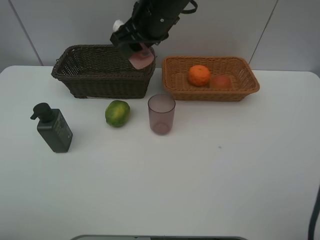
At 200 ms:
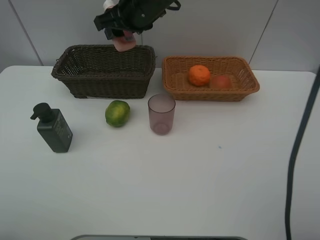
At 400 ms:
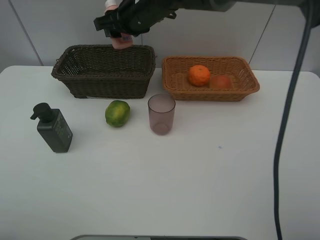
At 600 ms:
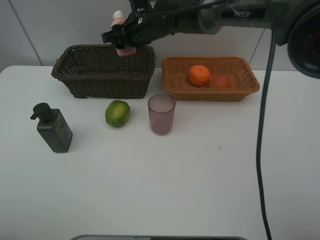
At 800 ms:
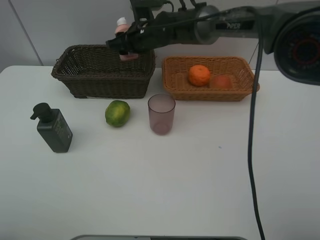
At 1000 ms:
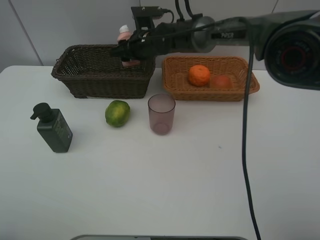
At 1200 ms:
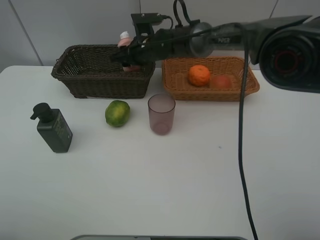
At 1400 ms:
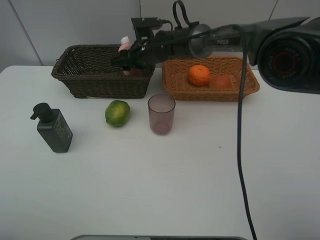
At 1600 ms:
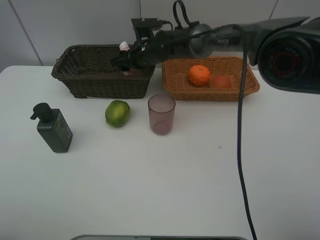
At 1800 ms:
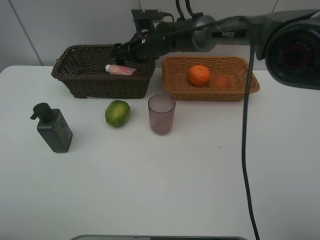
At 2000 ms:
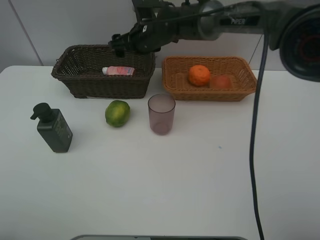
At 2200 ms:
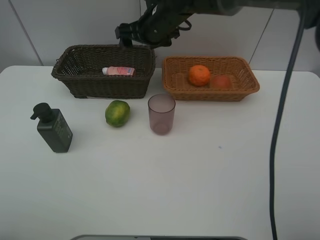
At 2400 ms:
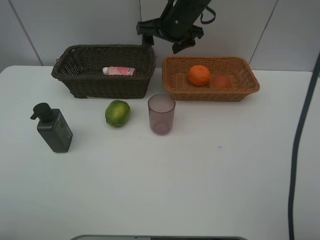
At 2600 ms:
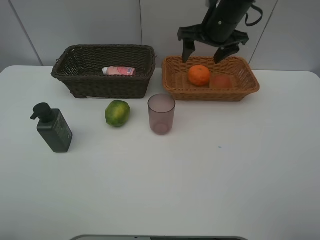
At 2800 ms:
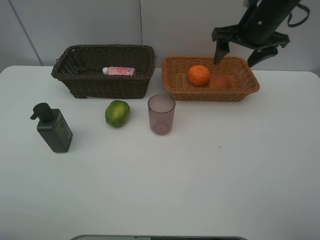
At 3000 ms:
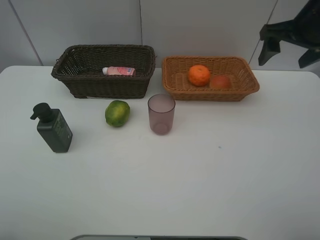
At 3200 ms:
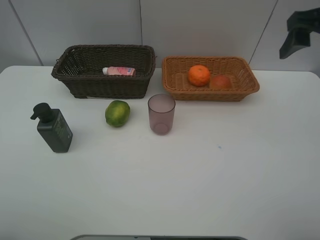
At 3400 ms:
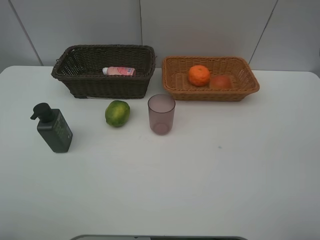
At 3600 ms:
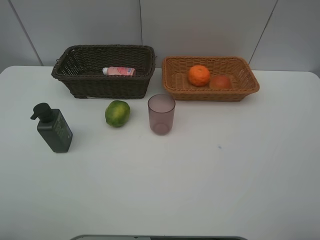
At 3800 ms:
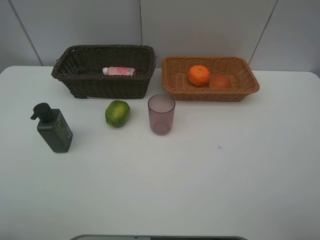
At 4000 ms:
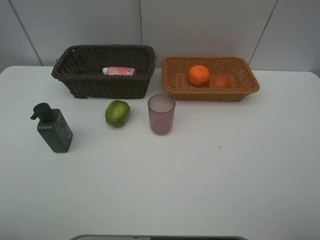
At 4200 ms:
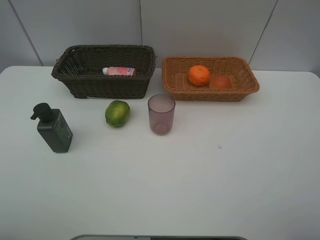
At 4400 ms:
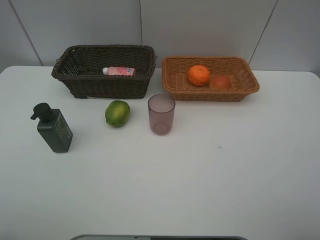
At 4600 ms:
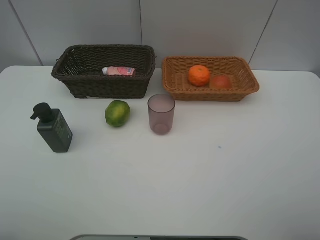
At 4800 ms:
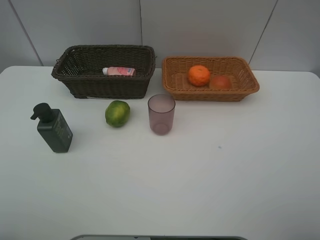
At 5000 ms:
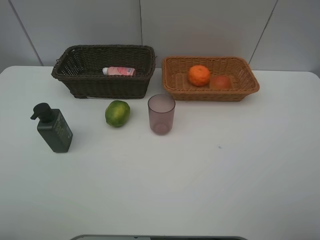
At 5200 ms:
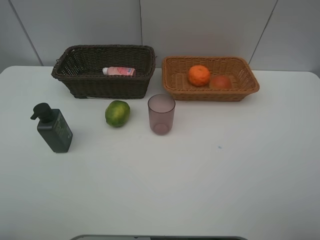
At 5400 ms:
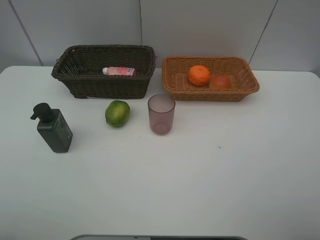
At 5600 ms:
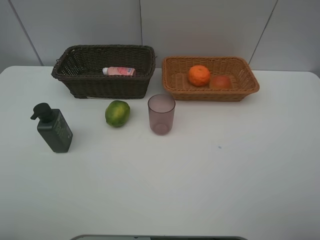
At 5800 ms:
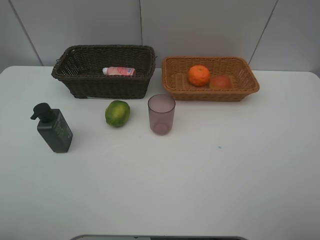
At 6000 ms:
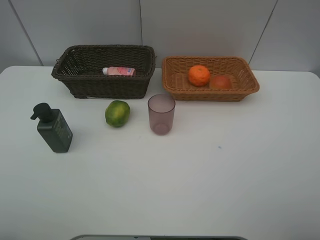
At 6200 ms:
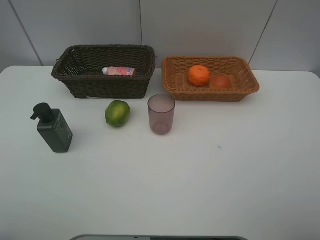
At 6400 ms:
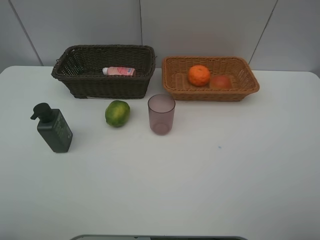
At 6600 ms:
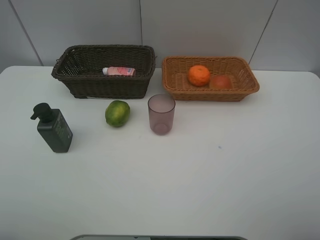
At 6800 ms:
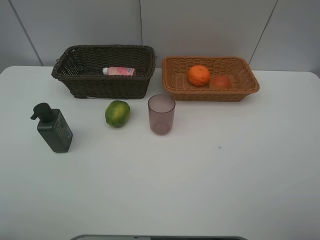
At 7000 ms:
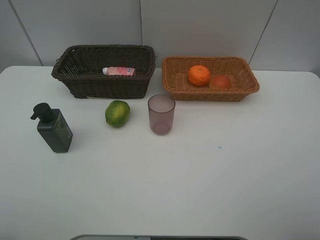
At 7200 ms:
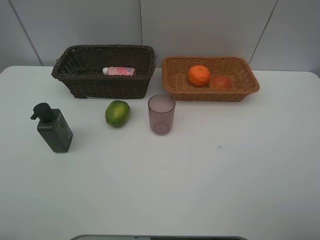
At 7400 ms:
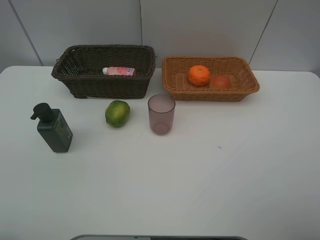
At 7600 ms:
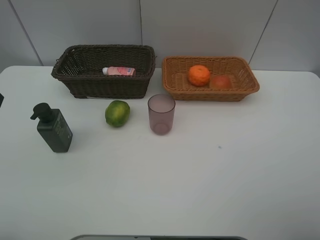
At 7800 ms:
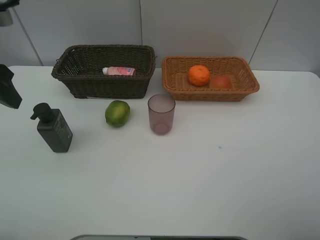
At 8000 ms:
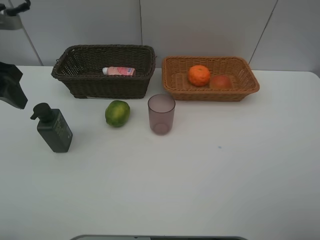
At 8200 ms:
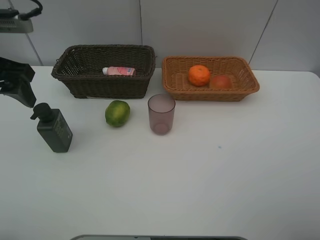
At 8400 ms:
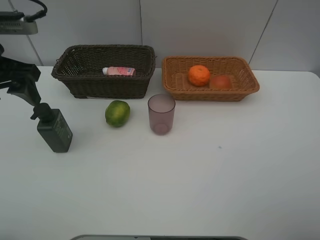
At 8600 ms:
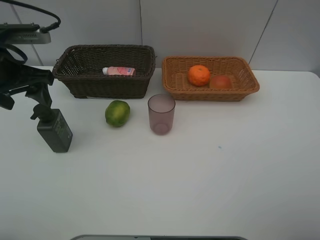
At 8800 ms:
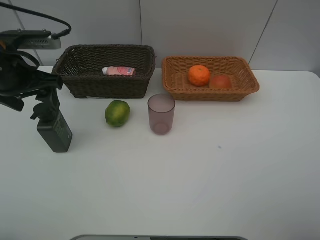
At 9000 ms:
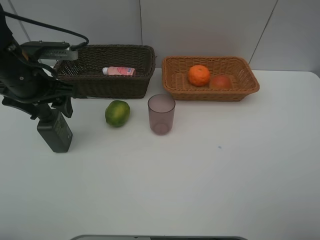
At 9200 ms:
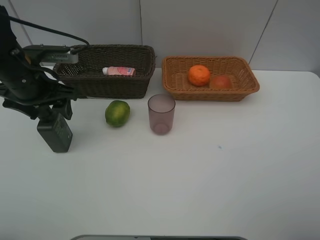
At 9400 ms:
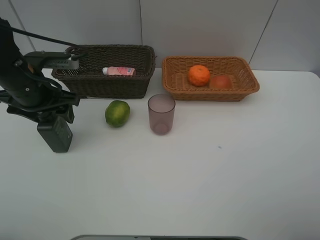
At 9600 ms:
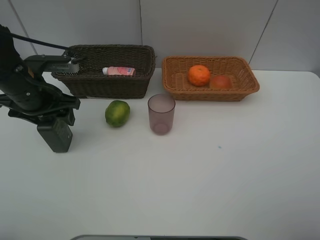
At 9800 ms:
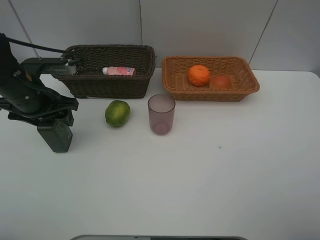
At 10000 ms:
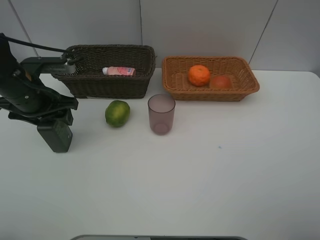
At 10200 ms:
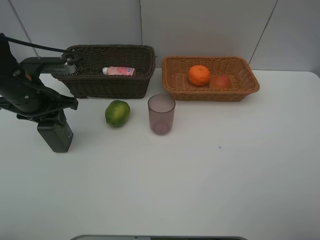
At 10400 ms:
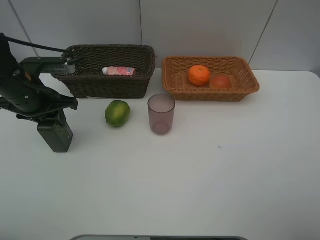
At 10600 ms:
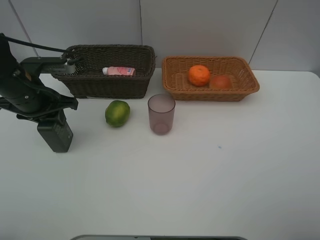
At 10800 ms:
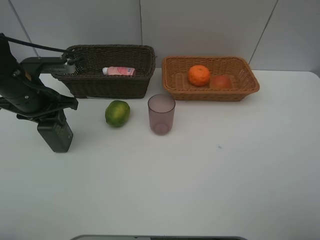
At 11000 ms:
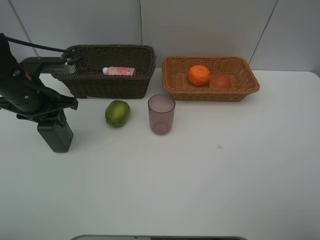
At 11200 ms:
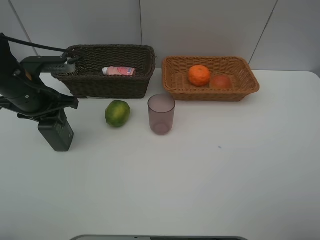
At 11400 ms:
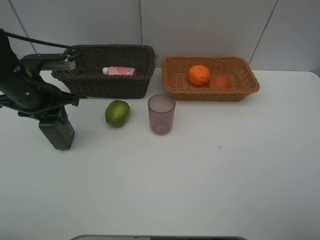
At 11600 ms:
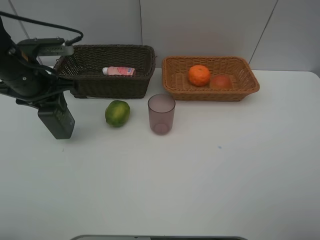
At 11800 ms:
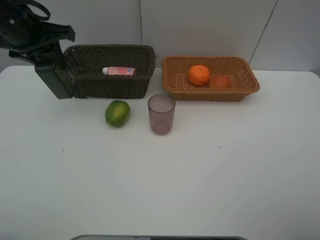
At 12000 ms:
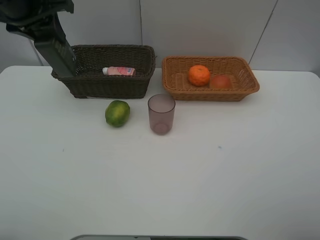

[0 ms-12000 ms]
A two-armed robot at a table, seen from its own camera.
Task of the whole recording: place multiple objects separately in different baskets.
0 ms to 1600 ms: The right gripper goes roughly 15 cm downward and forward.
1600 ms to 3000 ms: The right gripper moves to the right, upward and backward, roughly 35 cm, and opens up.
3000 ms to 4400 ms: The right gripper is displaced backward by approximately 30 cm.
7600 ms to 9000 ms: The left gripper shifts roughly 15 cm forward and downward.
9000 ms to 10400 ms: The left gripper closes.
10400 ms to 12000 ms: The left gripper is displaced upward and forward by approximately 15 cm.

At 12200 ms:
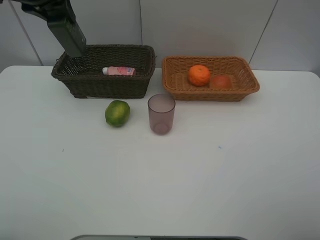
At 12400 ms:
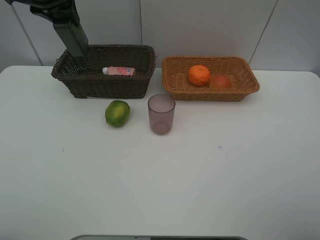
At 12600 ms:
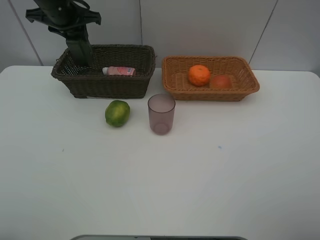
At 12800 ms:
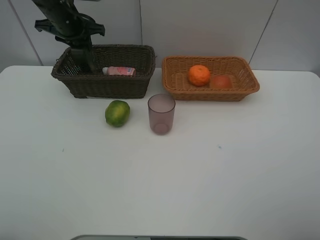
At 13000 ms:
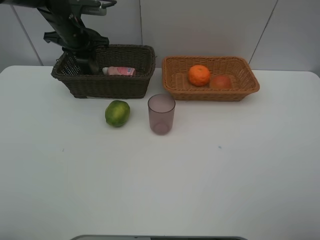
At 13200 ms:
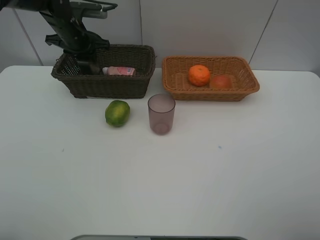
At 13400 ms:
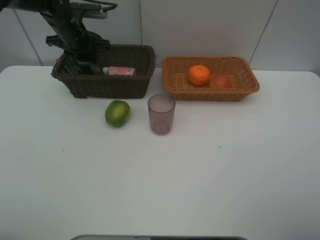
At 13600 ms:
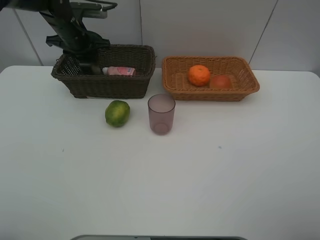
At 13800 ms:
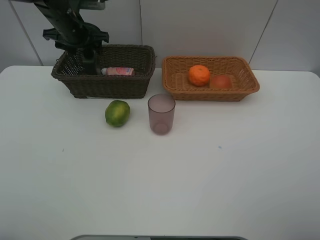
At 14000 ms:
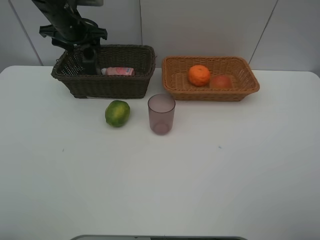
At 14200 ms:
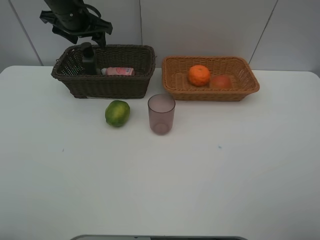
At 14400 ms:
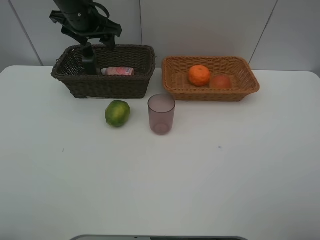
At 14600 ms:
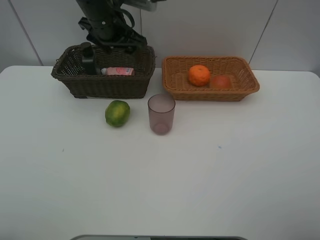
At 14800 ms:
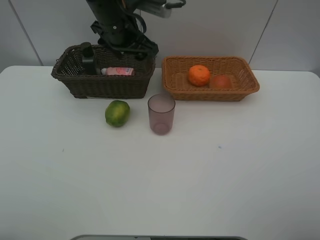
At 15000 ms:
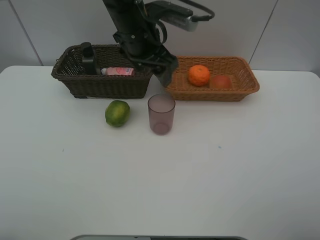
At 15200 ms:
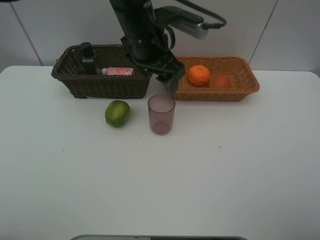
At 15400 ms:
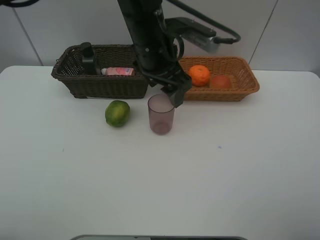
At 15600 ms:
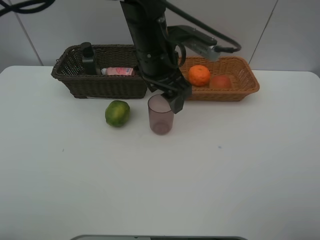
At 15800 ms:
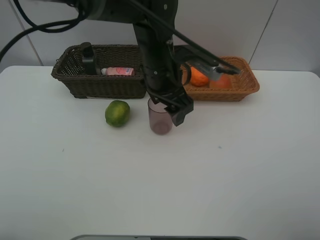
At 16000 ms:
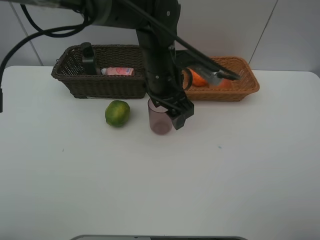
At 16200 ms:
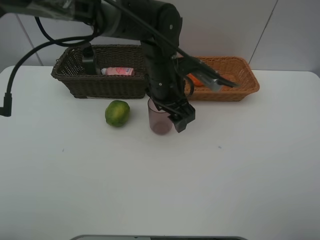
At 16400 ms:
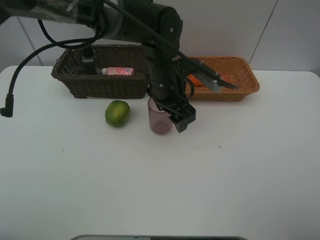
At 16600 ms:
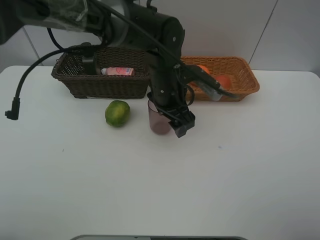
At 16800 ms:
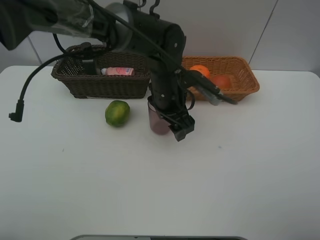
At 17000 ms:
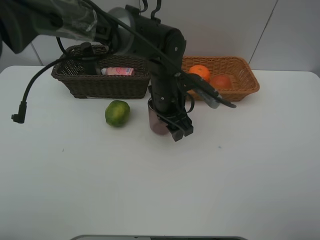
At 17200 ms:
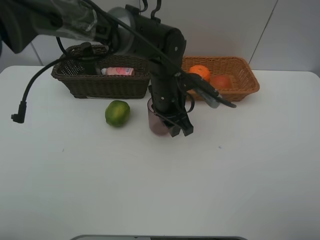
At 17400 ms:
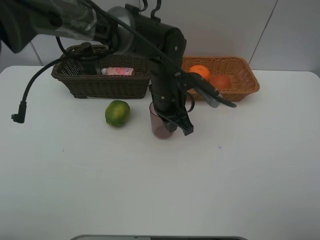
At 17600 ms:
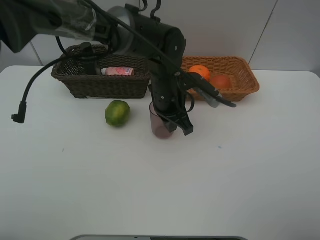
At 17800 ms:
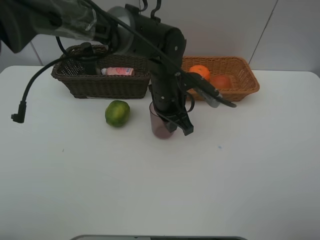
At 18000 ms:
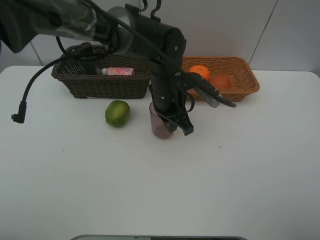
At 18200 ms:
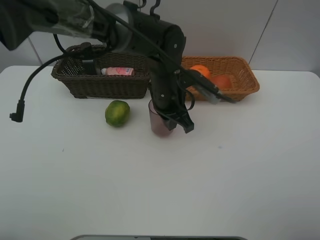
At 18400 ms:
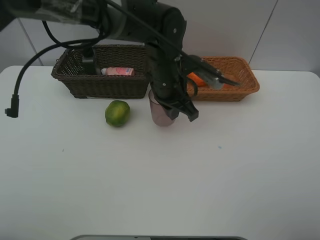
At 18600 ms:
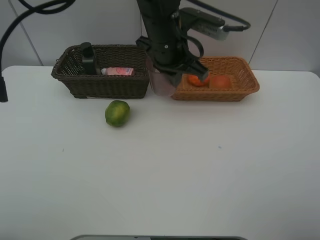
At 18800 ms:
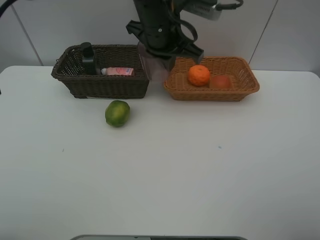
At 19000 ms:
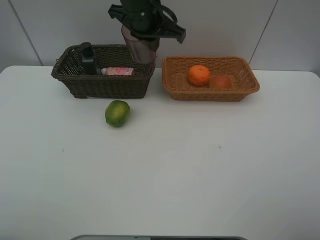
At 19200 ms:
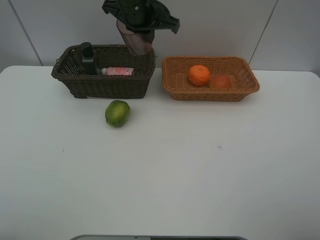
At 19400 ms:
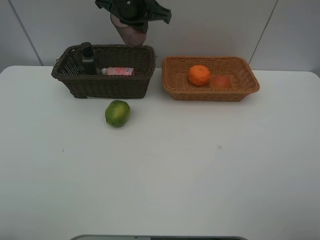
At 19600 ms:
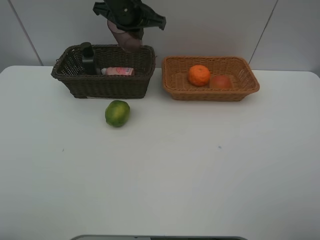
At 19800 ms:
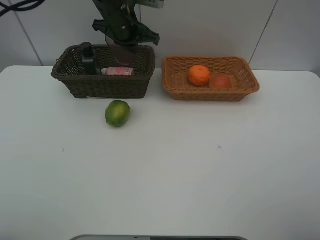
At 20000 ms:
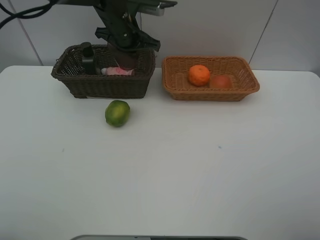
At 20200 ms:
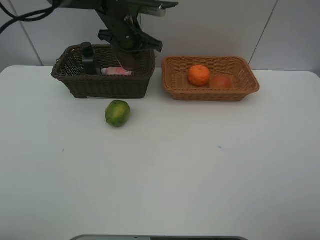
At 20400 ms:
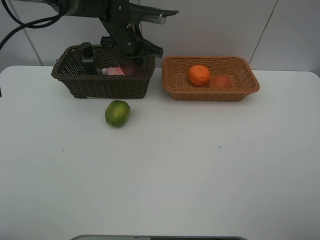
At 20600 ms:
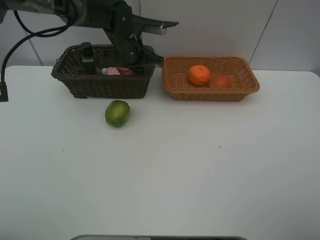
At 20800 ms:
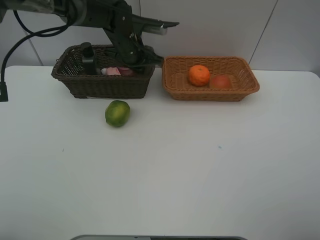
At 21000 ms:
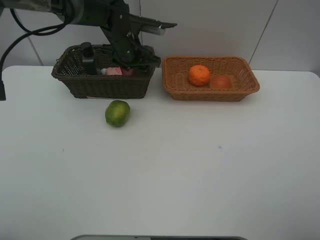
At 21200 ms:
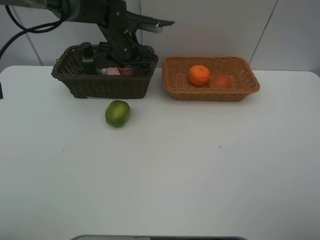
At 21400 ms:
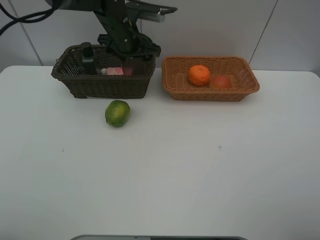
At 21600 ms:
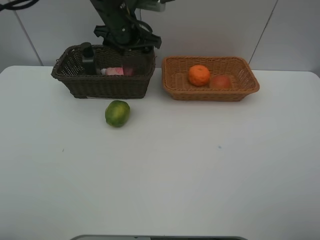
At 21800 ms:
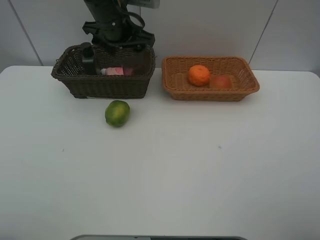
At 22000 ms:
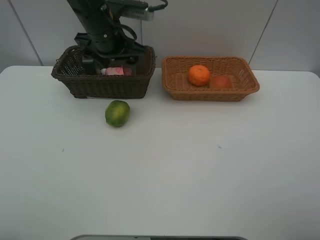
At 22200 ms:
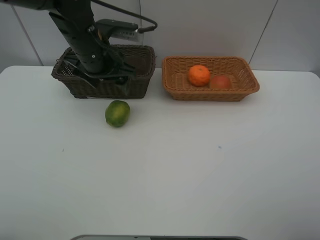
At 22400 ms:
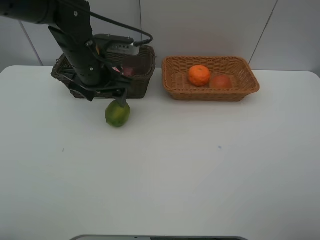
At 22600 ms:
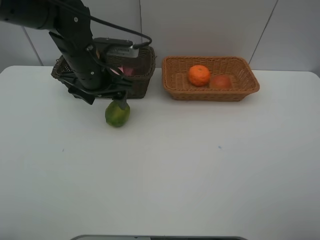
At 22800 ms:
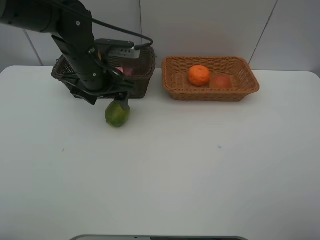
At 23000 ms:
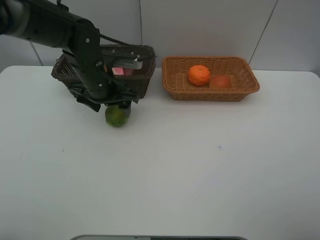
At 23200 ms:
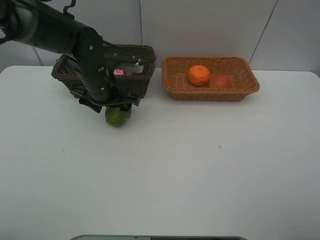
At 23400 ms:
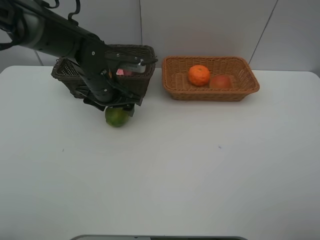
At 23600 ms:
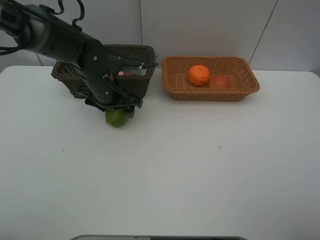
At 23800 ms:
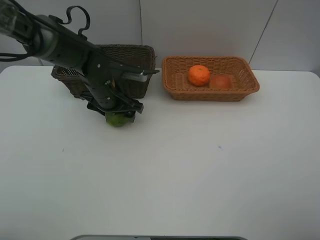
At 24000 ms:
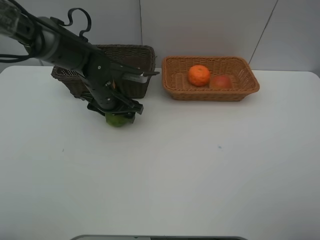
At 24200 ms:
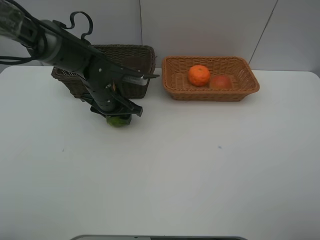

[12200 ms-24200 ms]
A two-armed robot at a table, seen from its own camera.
Task of the whole recording: place multiple objects separately in different baskets.
12200 ms to 13800 ms: The left gripper shifts roughly 15 cm downward and forward, and opens.
13800 ms to 15200 ms: The left gripper goes roughly 25 cm to the right and backward.
15200 ms to 16600 ms: The left gripper goes about 10 cm downward.
16600 ms to 18200 ms: The left gripper closes its fingers.
18200 ms to 19800 ms: The left gripper is displaced forward, to the left and upward by roughly 20 cm.
19800 ms to 21200 ms: The left gripper opens.
21200 ms to 22600 ms: The left gripper heads backward, covering approximately 10 cm.
22600 ms to 24200 ms: The left gripper is displaced downward by some 10 cm.
